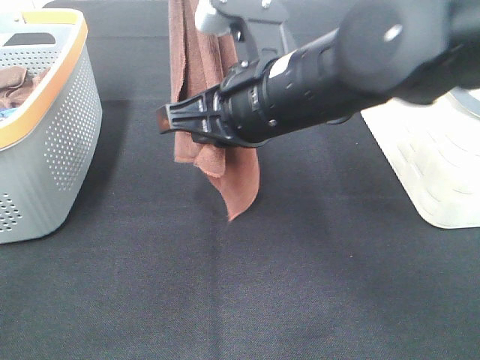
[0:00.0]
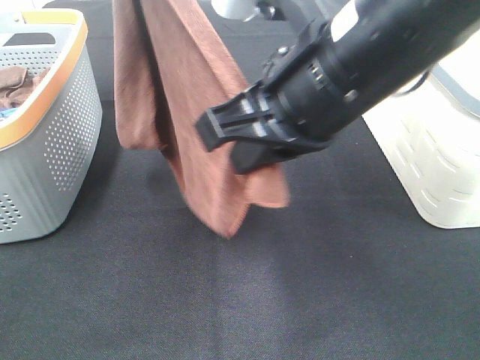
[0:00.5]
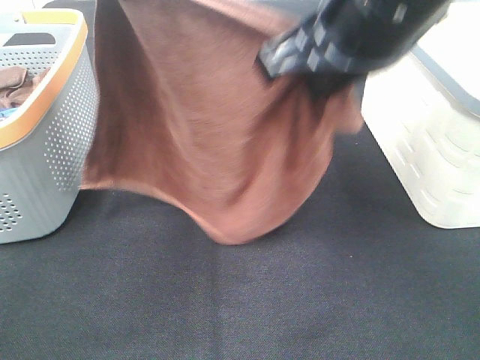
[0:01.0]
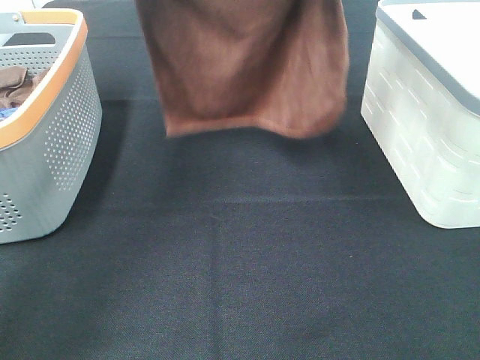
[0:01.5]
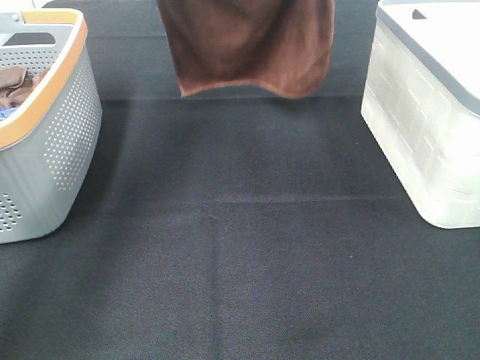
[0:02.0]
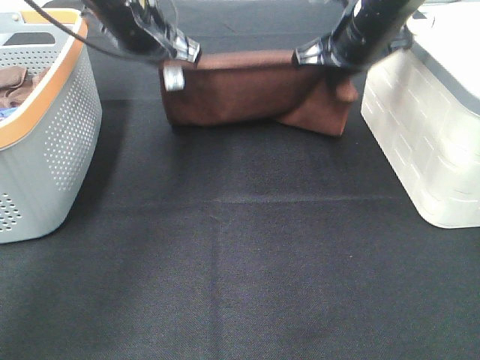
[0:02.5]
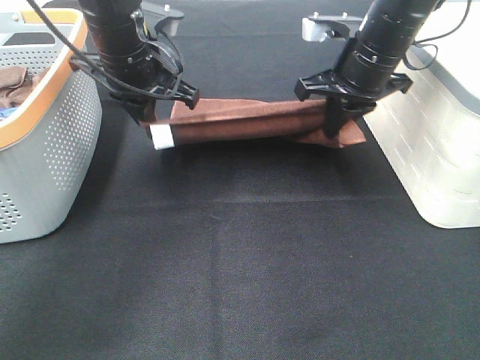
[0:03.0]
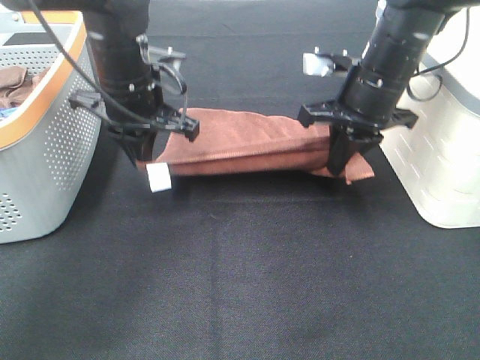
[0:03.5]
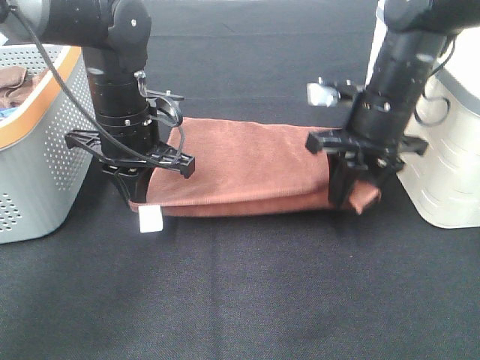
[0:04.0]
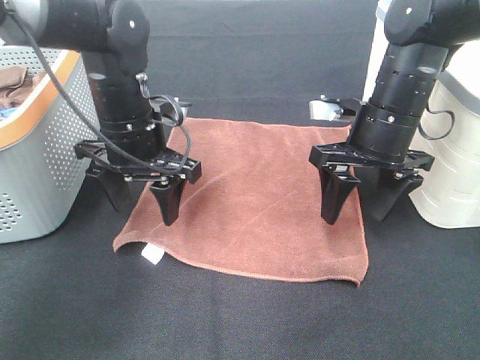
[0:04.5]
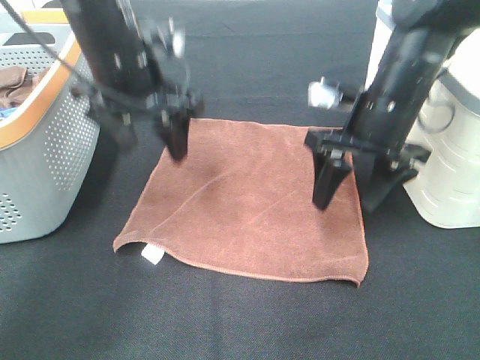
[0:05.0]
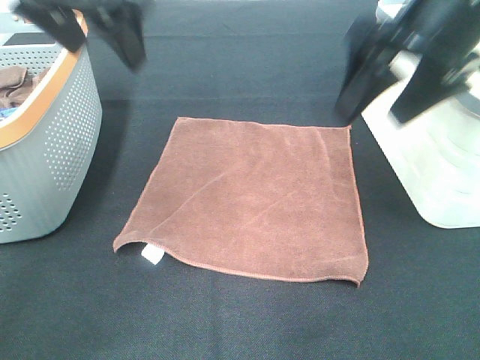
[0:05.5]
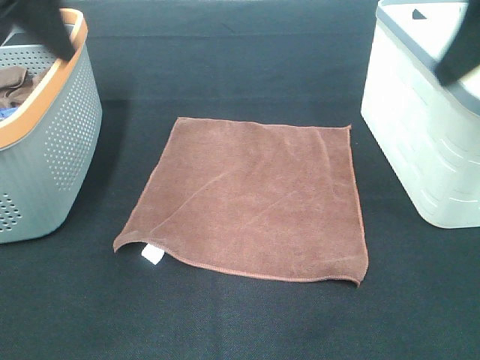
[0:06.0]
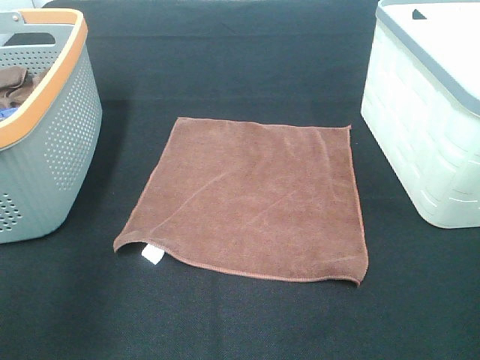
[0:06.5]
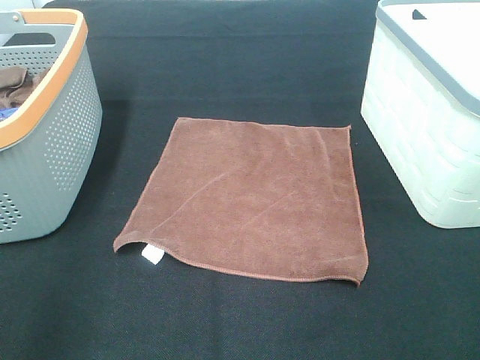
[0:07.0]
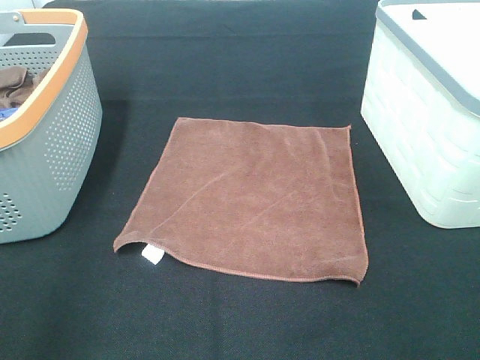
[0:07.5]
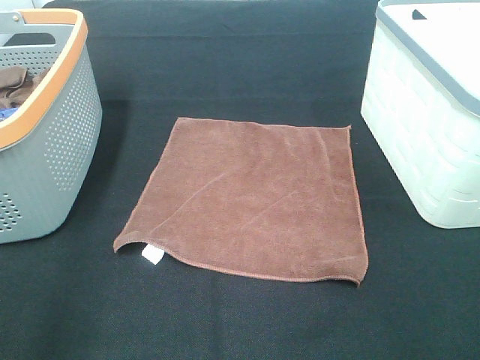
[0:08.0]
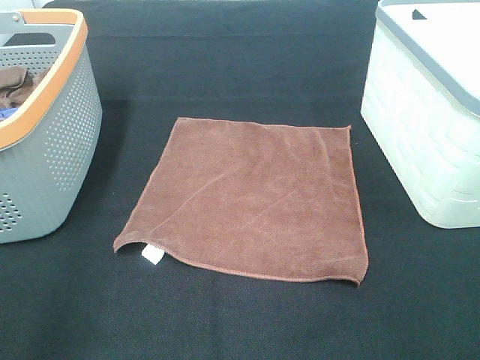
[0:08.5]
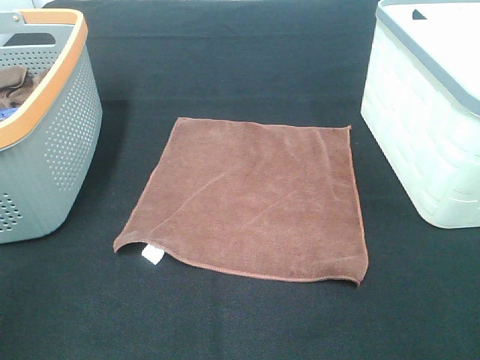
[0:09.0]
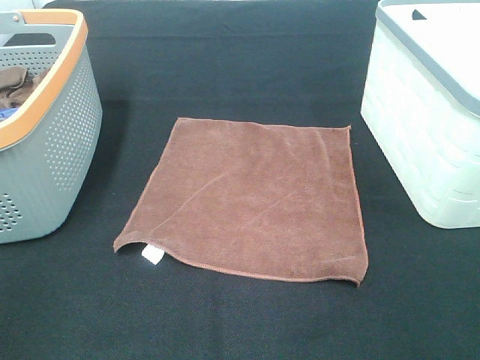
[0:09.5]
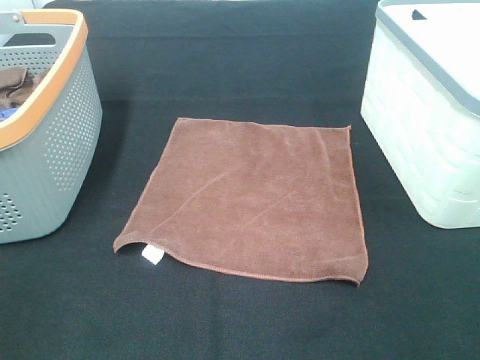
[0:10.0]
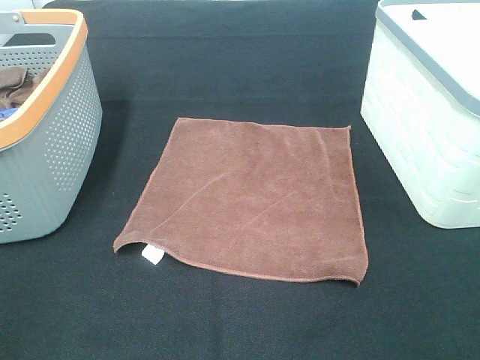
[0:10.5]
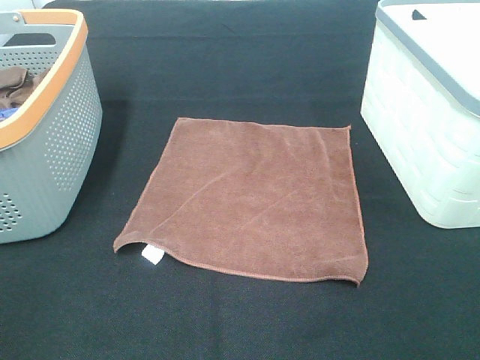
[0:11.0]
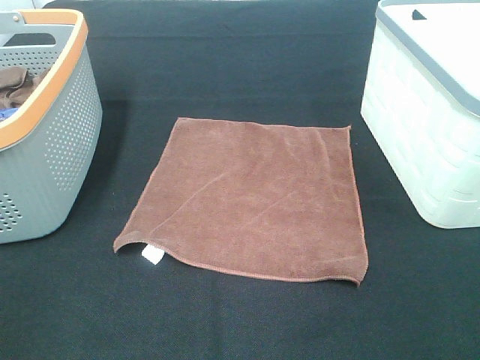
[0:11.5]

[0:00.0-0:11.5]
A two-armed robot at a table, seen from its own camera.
Task of the whole recording: Remove the towel and place it.
0:00.0 to 0:02.0: The right gripper is displaced forward and to the right by some 25 cm, while the left gripper moves forward and downward, about 25 cm.
0:02.0 to 0:04.0: The grippers both shift downward and backward by approximately 20 cm. The right gripper opens its fingers.
0:04.0 to 0:06.0: Both grippers travel together upward and backward, approximately 25 cm. The left gripper opens its fingers.
0:06.0 to 0:07.5: The left gripper is displaced backward, downward and to the left by roughly 20 cm. The right gripper heads backward and downward, covering roughly 20 cm.

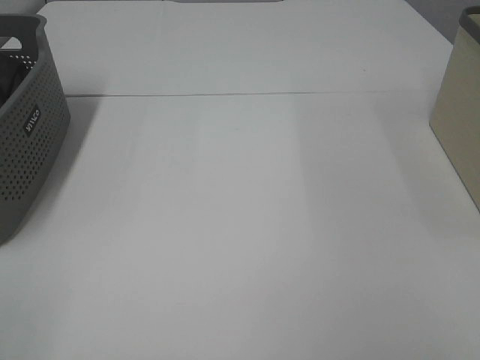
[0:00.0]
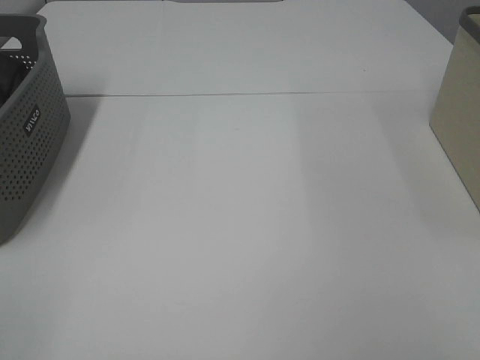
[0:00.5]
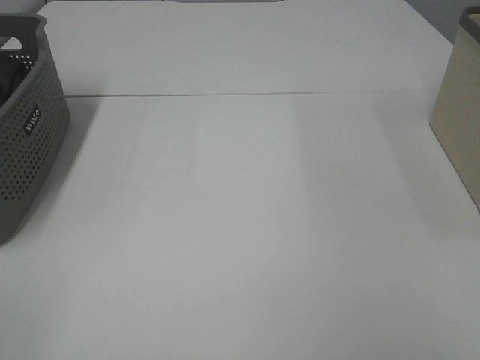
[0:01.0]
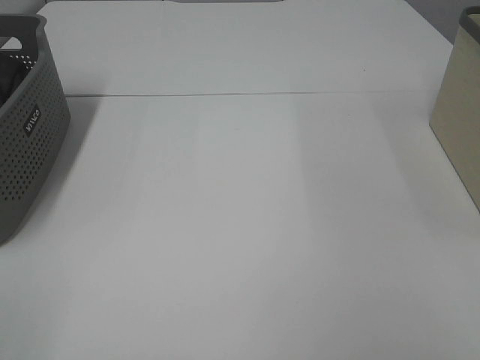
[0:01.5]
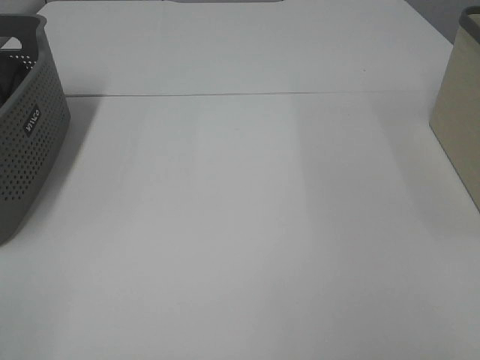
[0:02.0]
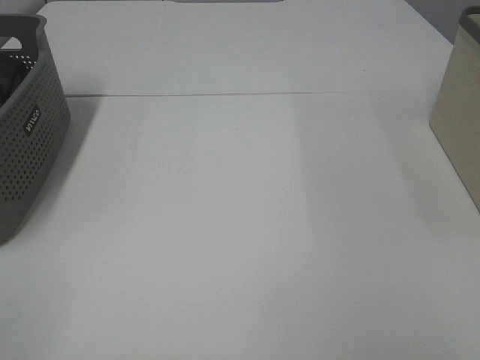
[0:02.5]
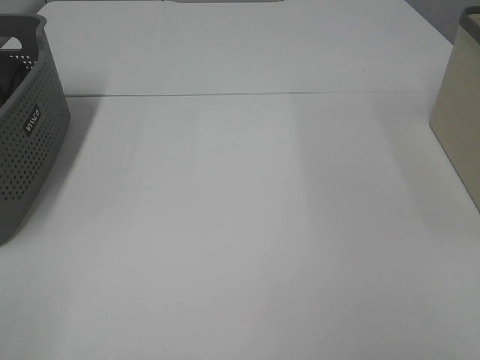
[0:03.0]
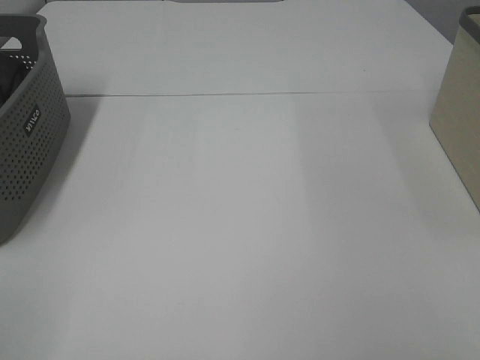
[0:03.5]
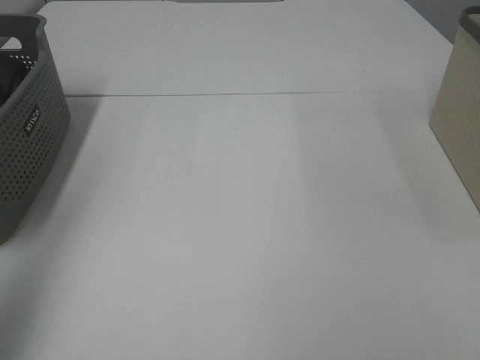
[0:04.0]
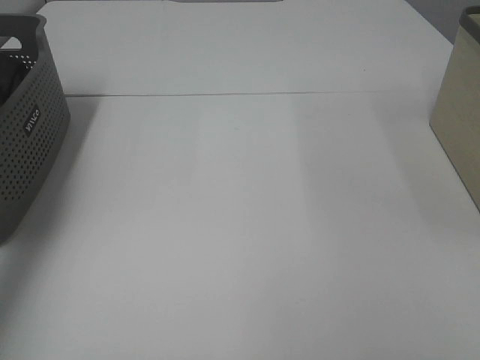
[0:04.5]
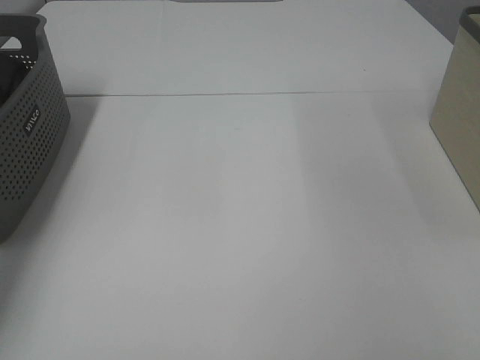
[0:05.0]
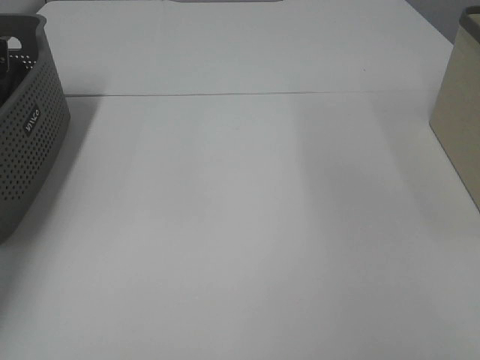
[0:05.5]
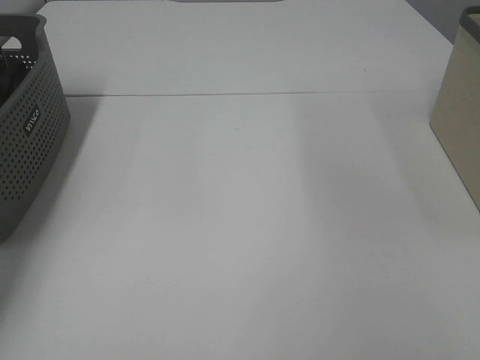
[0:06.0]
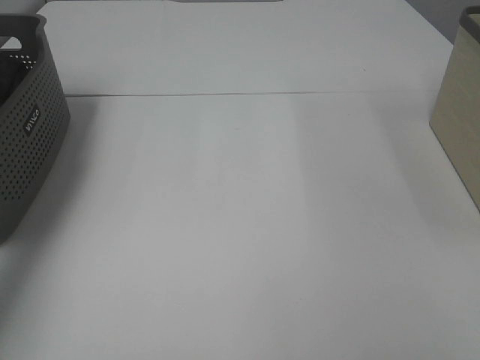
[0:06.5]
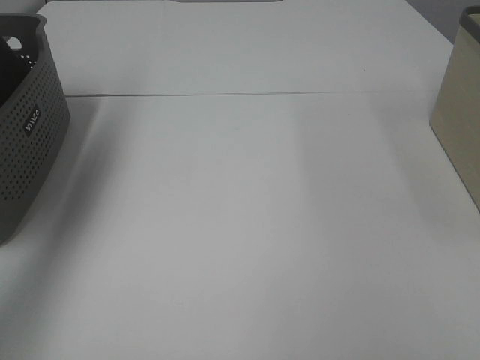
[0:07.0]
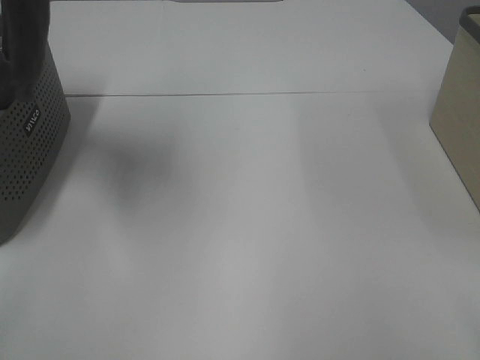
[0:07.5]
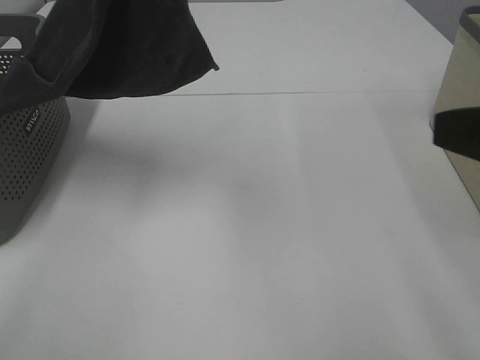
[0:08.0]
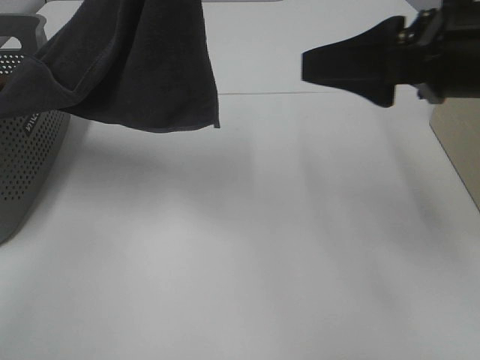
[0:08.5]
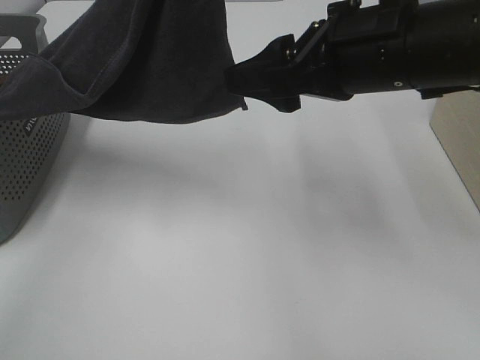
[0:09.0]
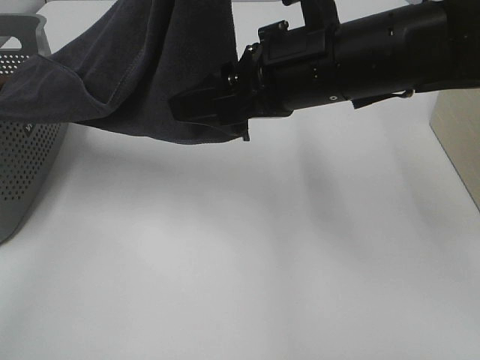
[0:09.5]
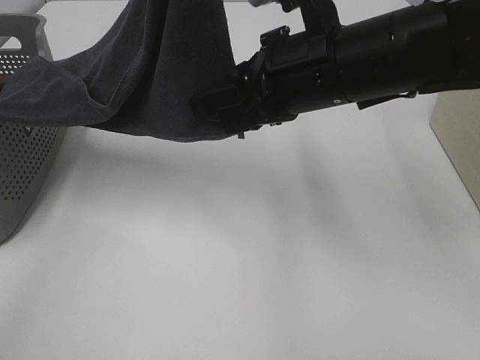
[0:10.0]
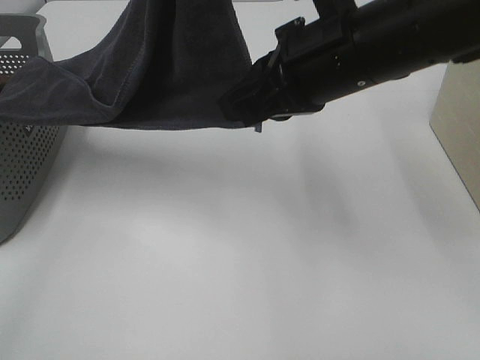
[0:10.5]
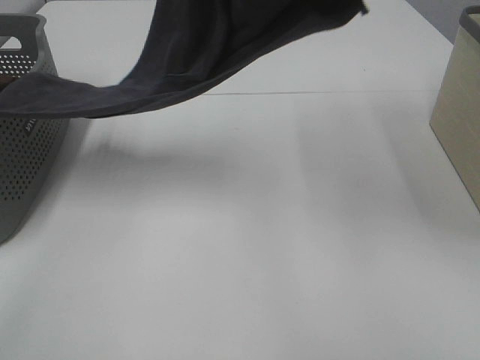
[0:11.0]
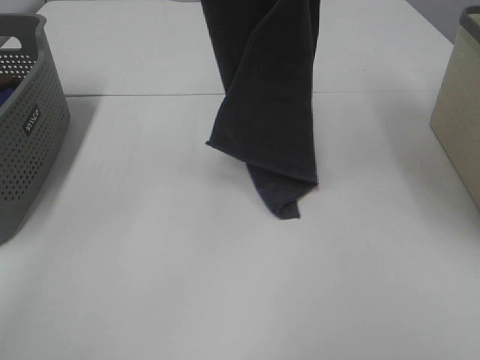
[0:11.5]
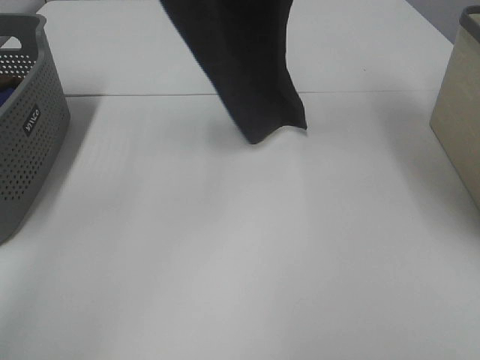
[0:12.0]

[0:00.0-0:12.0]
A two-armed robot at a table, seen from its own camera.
Task of the whole recording: Remove the towel and place it.
Step, 0:07.0 to 0:11.0: Right hand: grab a corner of the grey towel and straighten it.
0:00.0 to 0:02.0: Neither gripper changes place.
0:02.0 to 0:04.0: The left gripper shifts approximately 20 cm forward and upward.
0:04.0 to 0:06.0: The left gripper is displaced forward and downward by some 40 cm, and closes its fingers.
0:06.0 to 0:08.0: The right gripper travels forward by roughly 15 cm. The left gripper goes about 50 cm to the right, upward and backward.
0:08.0 to 0:10.0: The right gripper goes roughly 20 cm to the left and forward, and closes up.
0:10.0 to 0:12.0: The left gripper shifts about 10 cm forward and to the left, while the right gripper travels upward by some 30 cm.

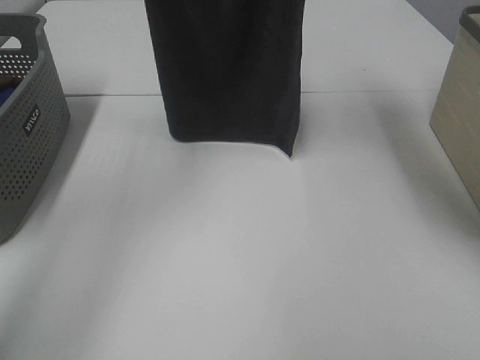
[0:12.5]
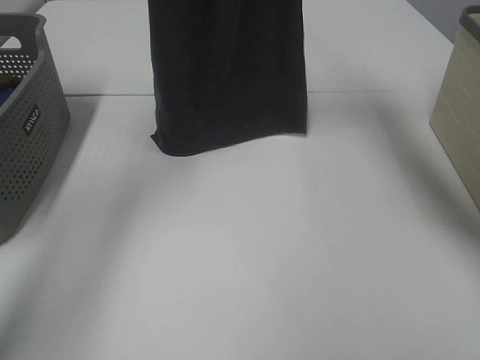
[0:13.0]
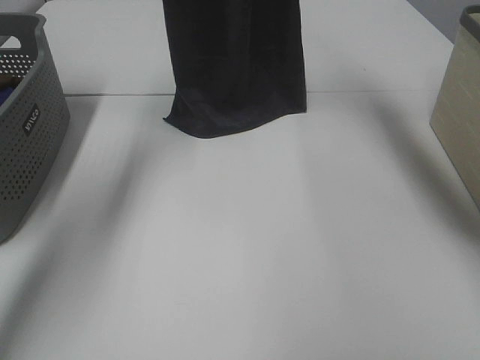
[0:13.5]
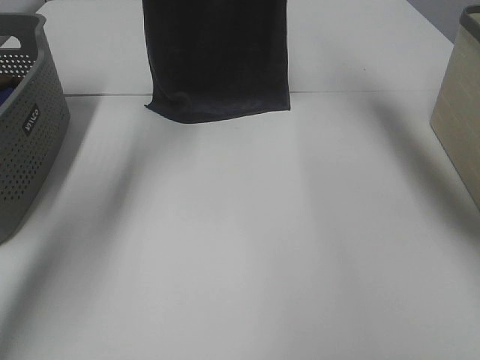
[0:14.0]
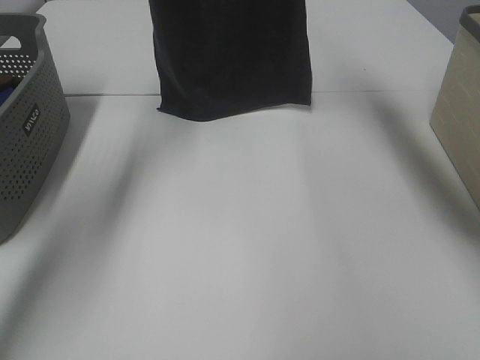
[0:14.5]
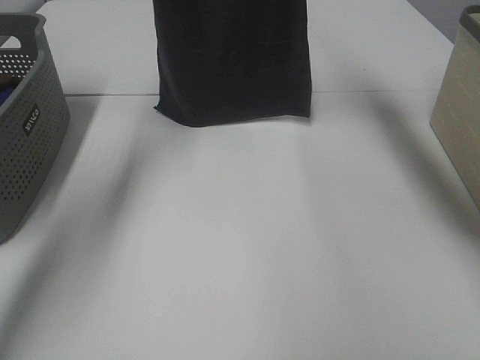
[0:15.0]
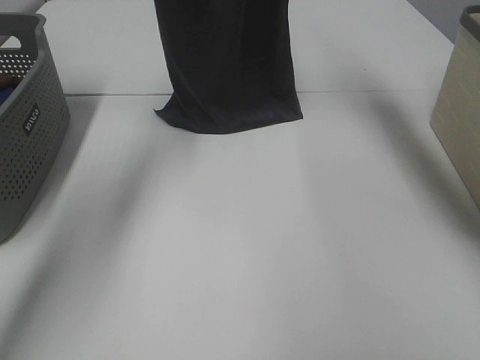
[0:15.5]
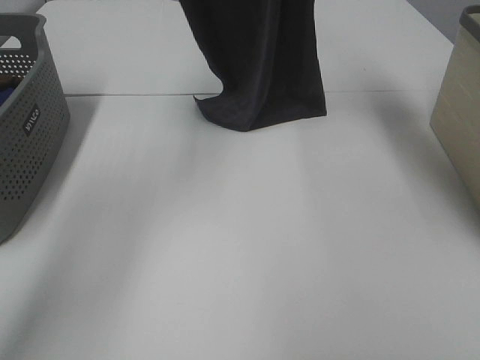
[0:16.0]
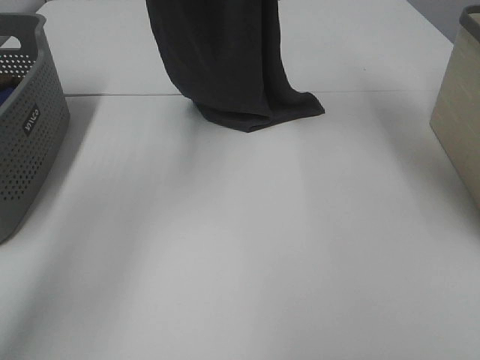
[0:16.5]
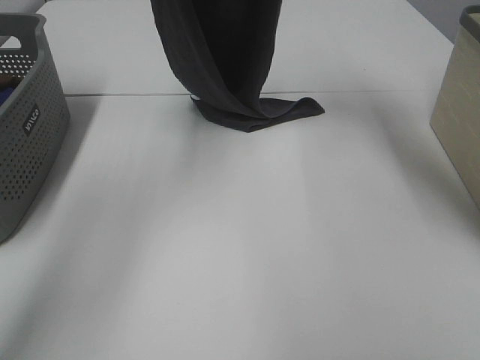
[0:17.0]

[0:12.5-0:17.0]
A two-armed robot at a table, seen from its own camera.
Task of the whole recording: Remove the towel and place it.
0:12.5 to 0:14.5: The grippers both shift forward and downward by some 10 cm.
0:14.5 to 0:17.0: The right gripper shifts roughly 10 cm downward. Meanwhile the left gripper shifts approximately 5 cm backward.
